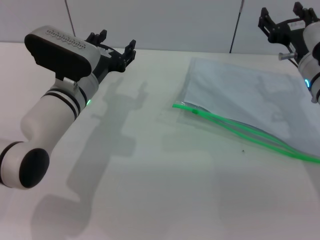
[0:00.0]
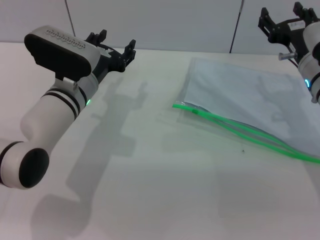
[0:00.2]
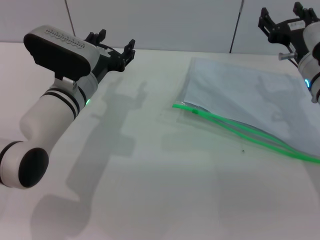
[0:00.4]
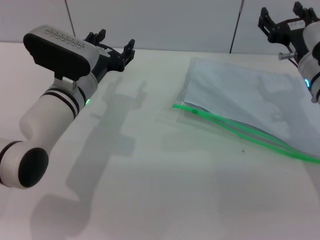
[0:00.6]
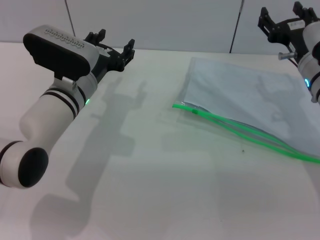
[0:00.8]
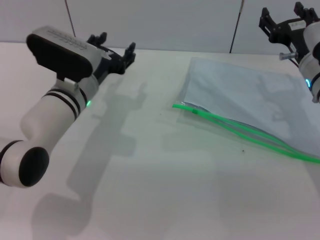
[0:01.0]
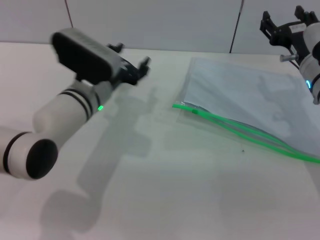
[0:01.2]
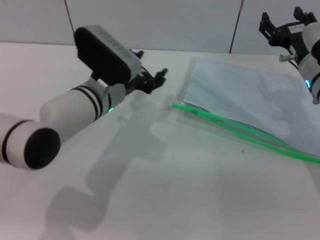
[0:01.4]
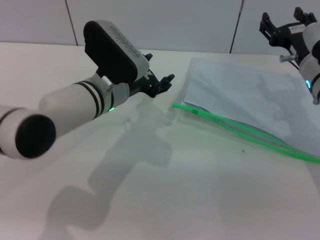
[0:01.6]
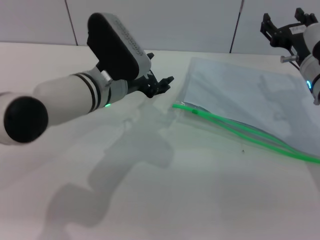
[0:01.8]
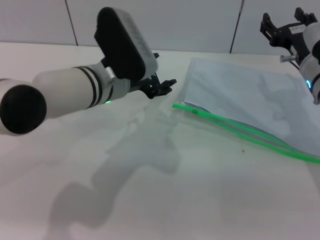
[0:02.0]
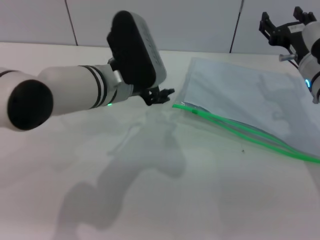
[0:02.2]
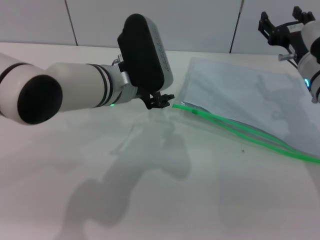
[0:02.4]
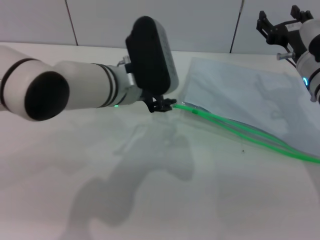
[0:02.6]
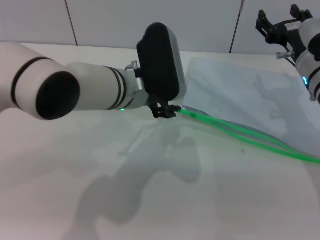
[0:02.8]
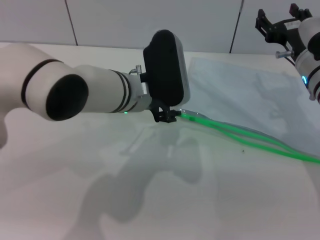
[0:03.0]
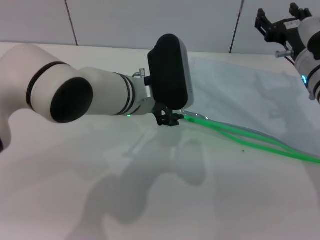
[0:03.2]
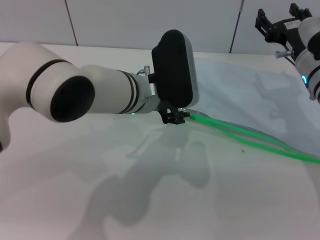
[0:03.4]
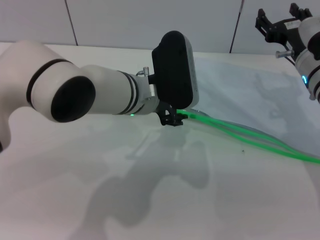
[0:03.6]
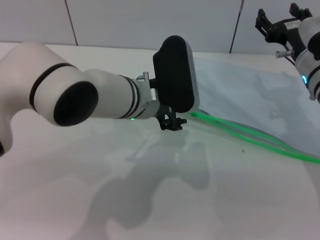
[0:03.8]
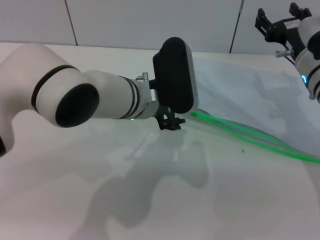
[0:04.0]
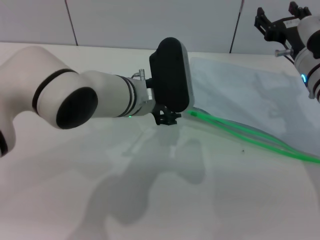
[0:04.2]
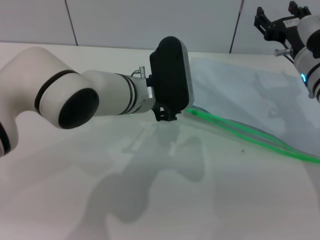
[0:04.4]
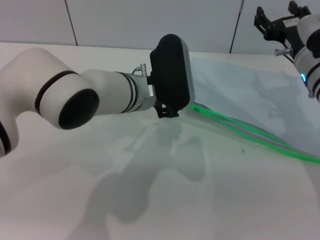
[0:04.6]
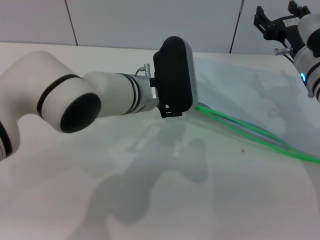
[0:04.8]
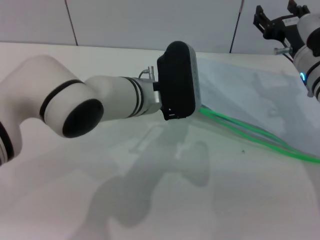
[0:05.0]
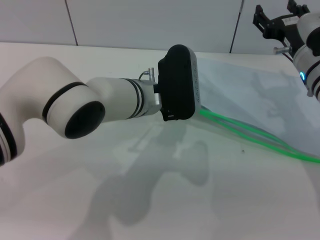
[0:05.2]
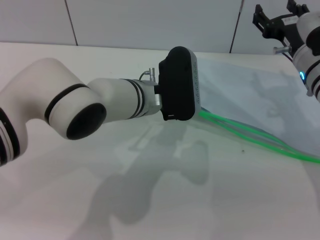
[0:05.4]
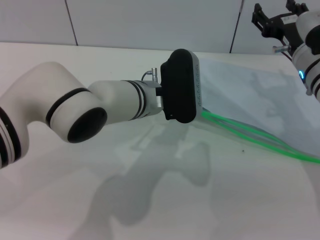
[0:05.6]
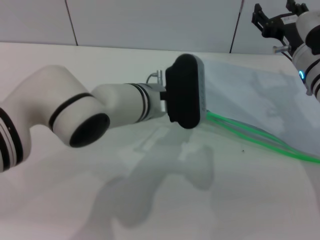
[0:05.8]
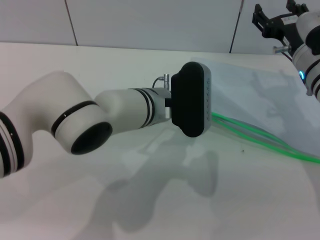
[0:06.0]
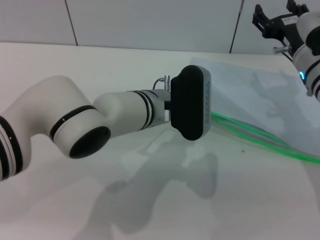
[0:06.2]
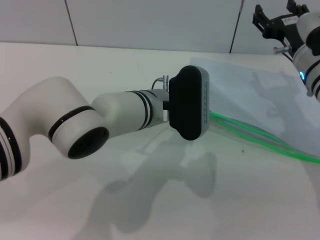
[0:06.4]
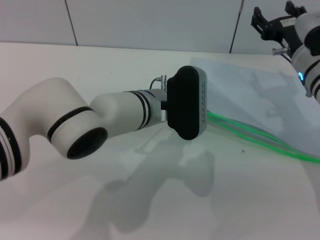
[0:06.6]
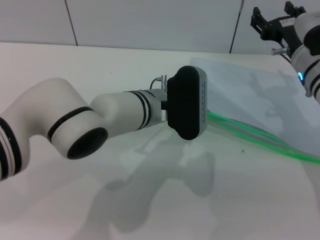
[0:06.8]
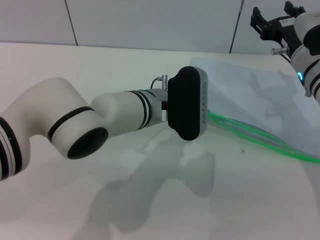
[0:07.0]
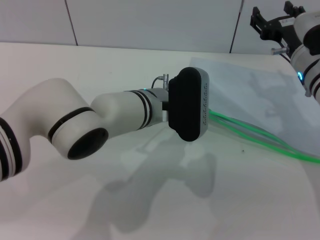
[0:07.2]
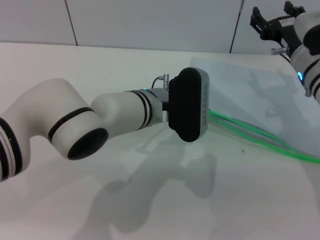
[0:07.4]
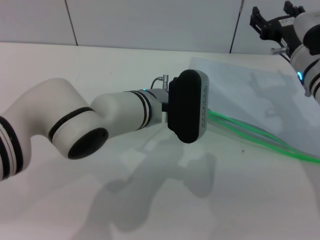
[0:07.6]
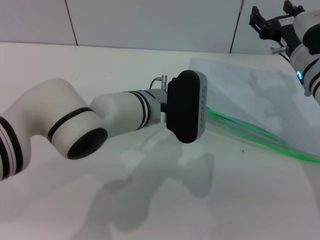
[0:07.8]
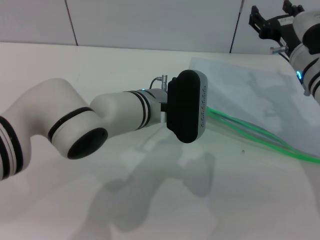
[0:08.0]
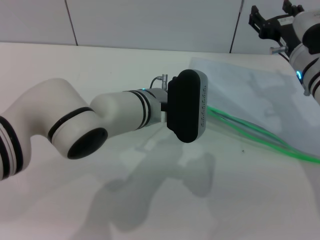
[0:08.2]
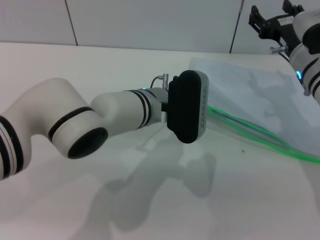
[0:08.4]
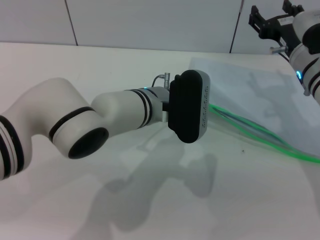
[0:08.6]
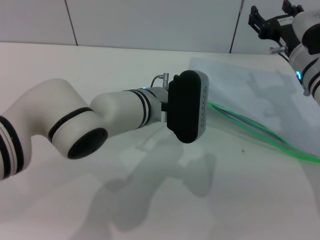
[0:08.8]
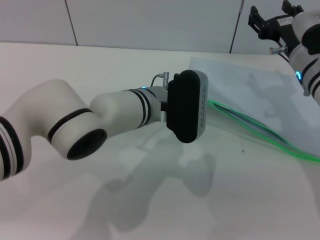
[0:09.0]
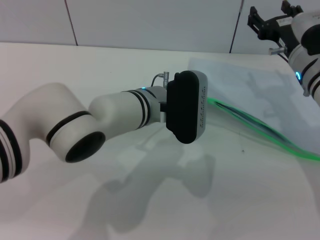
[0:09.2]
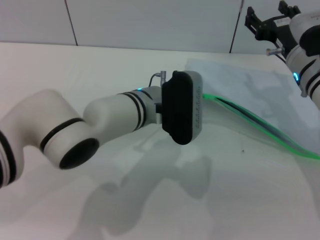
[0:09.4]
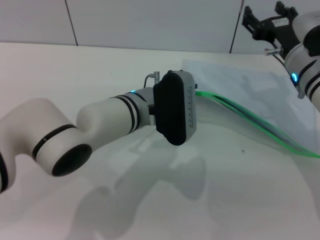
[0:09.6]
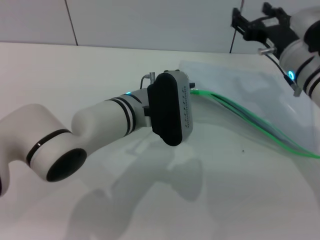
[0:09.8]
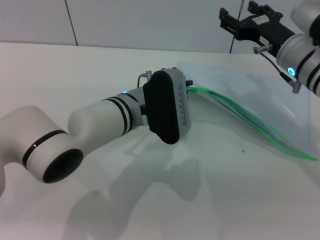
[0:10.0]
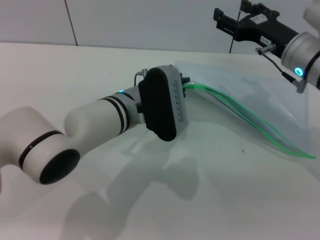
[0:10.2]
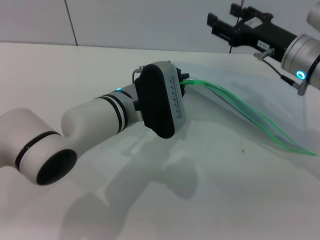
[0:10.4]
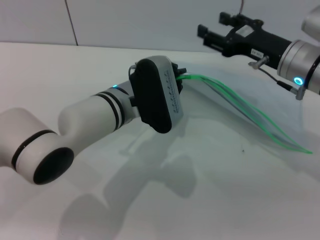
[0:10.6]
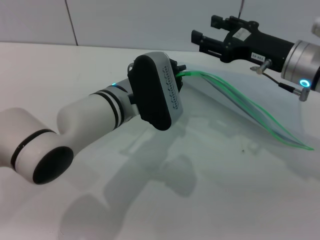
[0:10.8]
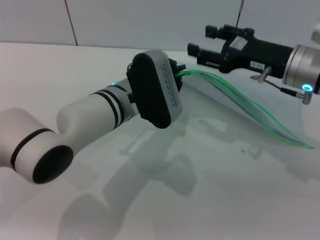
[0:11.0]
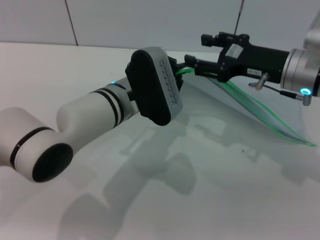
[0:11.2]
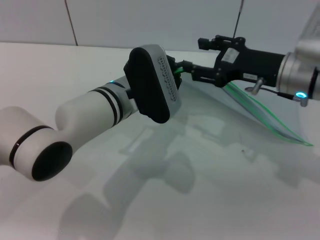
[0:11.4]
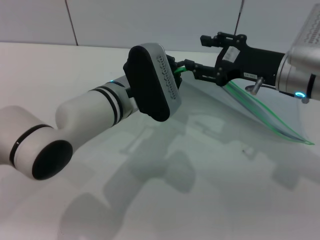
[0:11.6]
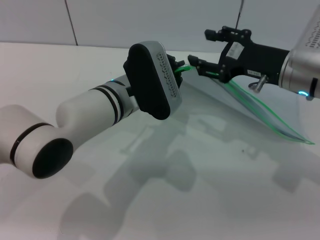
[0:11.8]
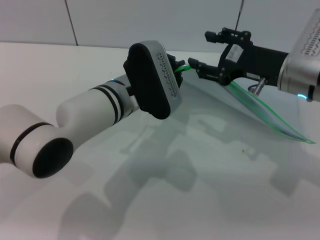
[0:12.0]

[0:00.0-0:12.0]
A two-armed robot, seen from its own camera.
Step, 0:00.0 to 0:10.6: Pick up the transparent plastic bag with the left gripper.
0:03.0 to 0:06.0: The grippers move only a little.
0:06.0 to 0:07.6: Both grippers stay about where they are.
0:07.6 to 0:09.0: The left gripper closes.

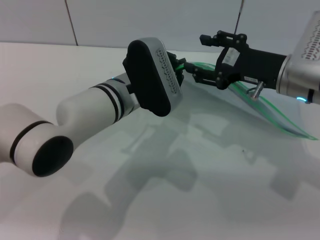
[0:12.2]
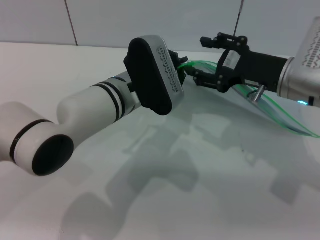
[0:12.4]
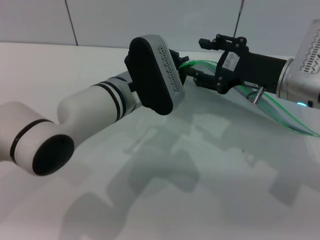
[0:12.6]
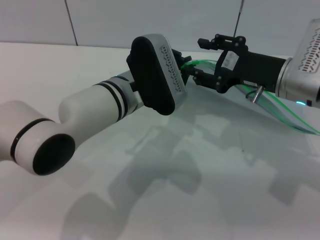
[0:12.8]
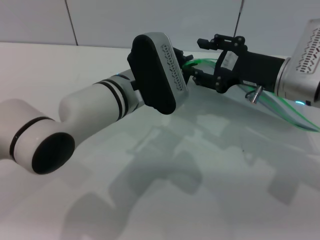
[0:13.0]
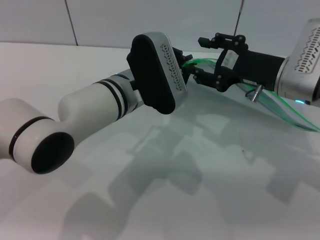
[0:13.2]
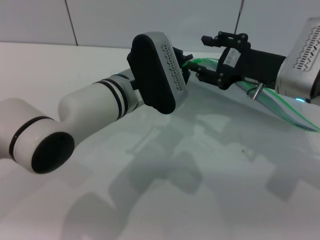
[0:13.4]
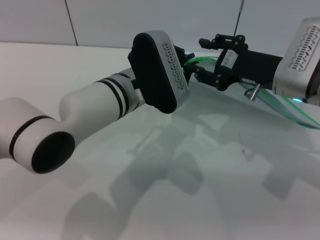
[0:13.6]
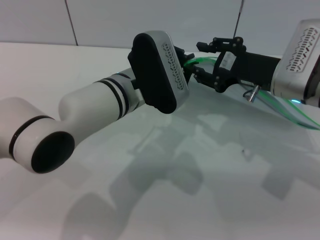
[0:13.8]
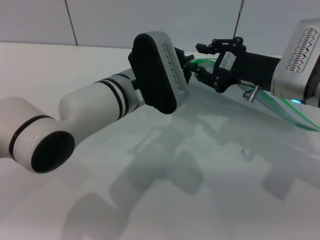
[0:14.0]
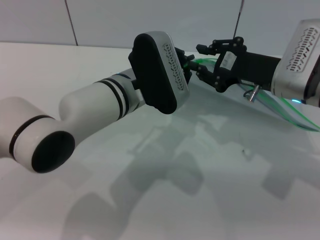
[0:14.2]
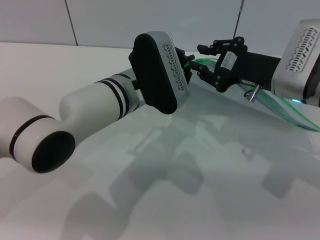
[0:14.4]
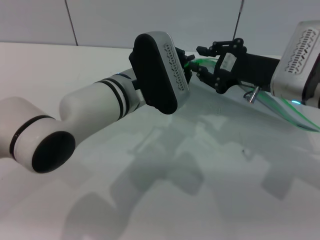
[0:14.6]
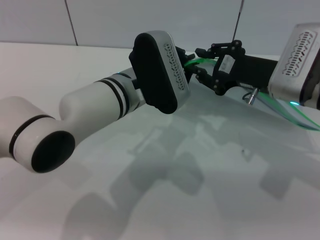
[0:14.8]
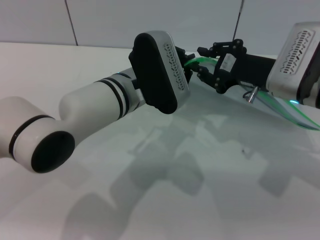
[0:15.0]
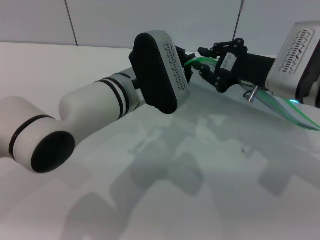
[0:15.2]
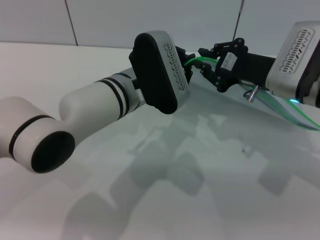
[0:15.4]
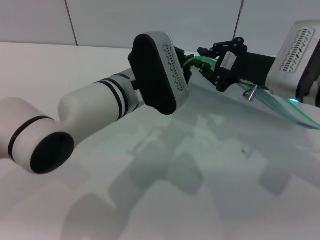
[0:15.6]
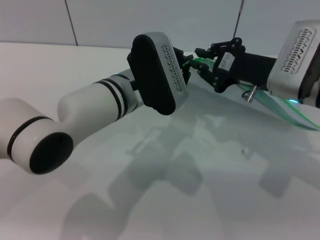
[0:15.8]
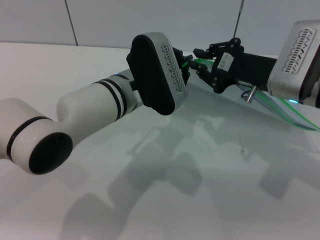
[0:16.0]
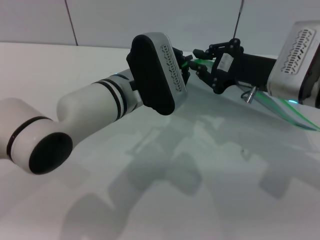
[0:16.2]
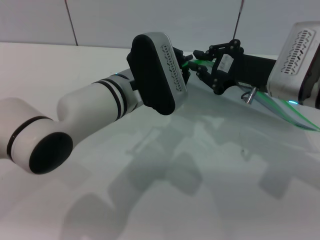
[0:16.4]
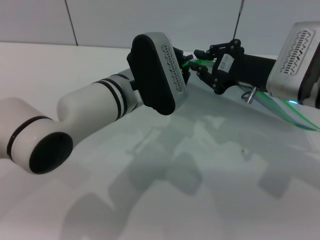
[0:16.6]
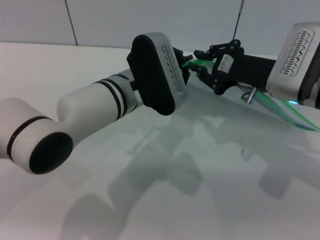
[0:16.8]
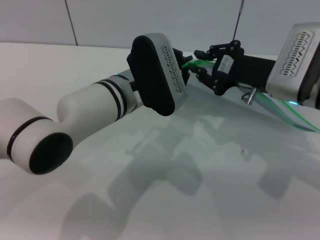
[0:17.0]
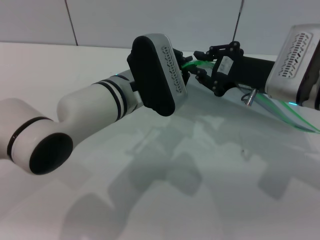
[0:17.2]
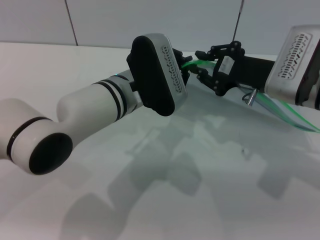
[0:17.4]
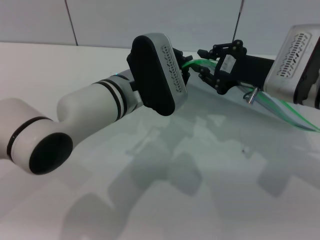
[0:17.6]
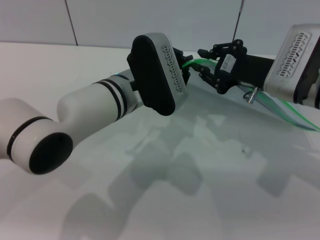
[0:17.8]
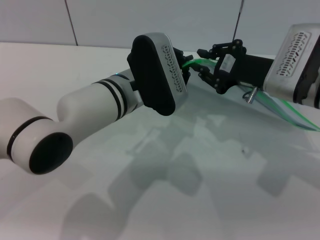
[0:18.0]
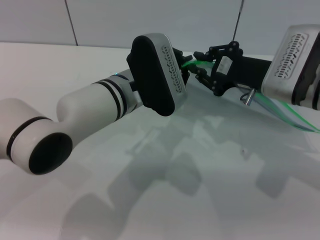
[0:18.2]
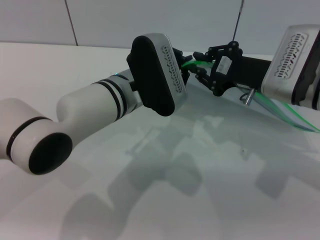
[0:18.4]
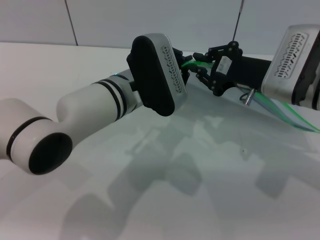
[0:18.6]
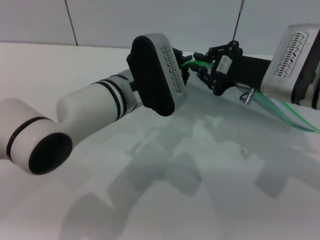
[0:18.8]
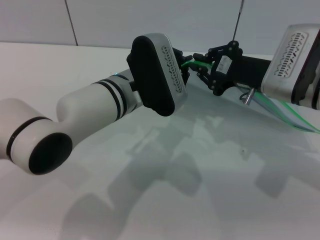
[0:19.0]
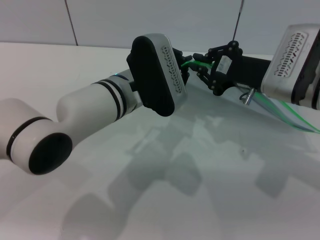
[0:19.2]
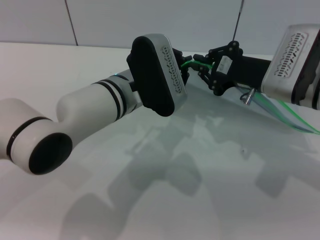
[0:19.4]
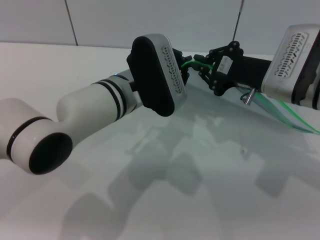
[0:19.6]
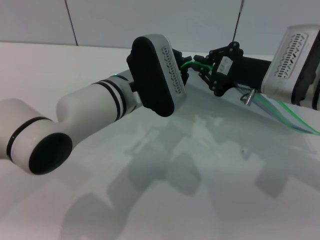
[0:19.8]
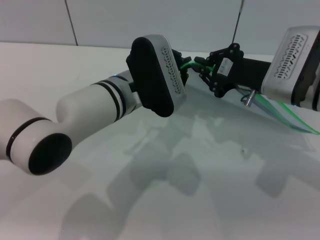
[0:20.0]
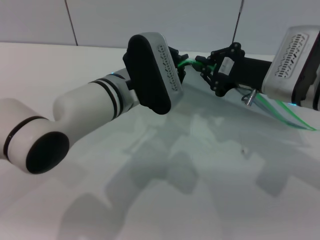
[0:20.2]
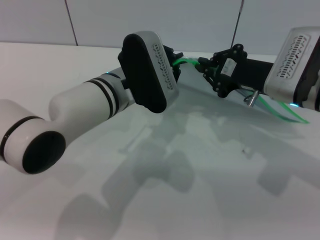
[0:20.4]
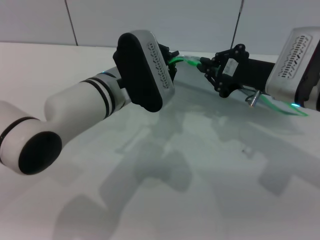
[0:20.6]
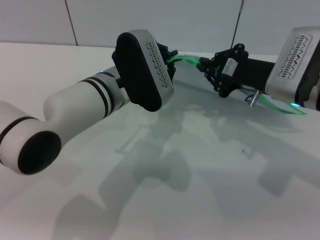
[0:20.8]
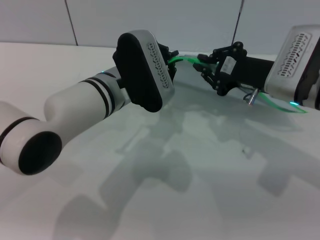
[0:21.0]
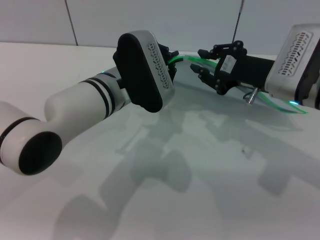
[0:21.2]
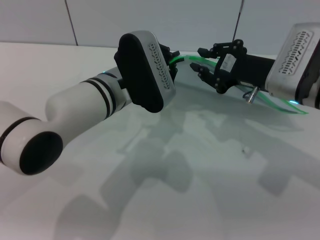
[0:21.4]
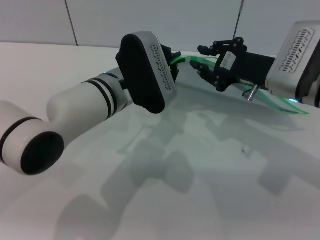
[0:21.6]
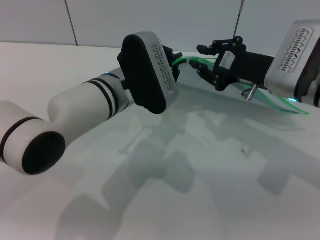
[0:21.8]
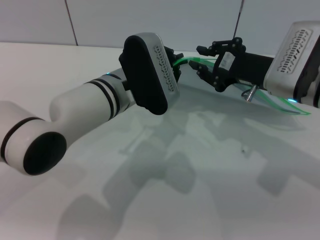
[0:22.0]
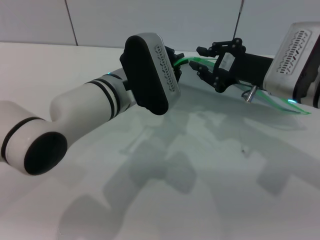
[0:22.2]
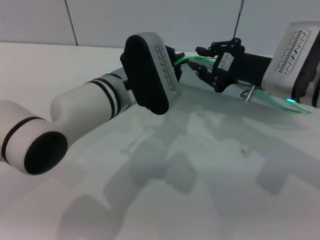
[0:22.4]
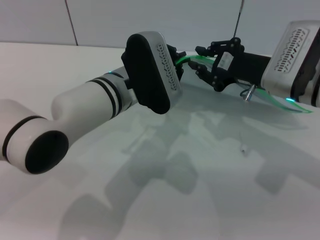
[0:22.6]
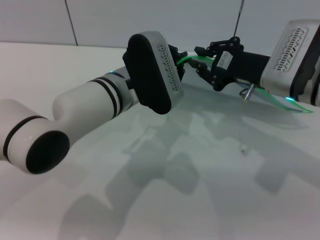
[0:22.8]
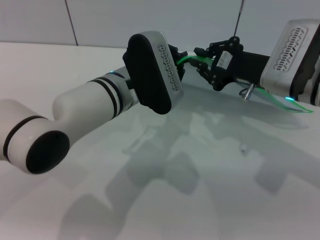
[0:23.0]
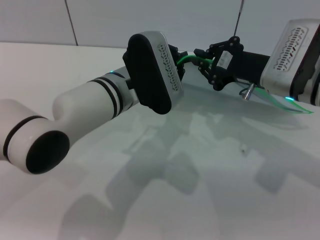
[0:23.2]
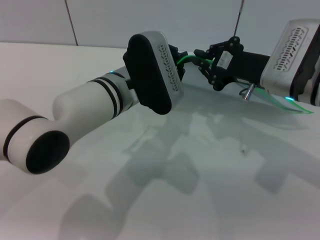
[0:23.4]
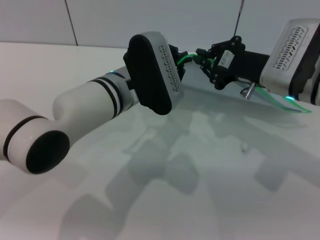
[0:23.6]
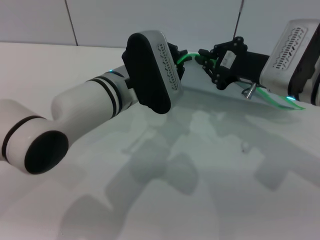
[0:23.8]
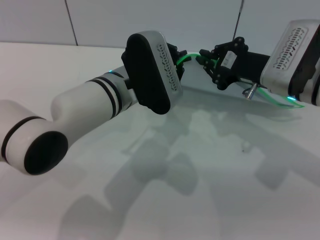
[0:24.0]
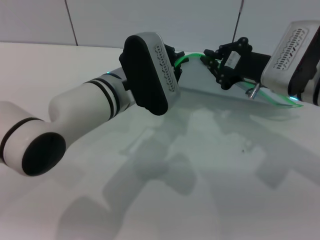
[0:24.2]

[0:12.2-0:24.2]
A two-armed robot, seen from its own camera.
0:12.2 to 0:13.8: There are only small adjustments of the grippers.
0:13.8 to 0:19.8: Both grippers stay about where they are.
0:19.8 to 0:21.2: The grippers make only small movements.
0:21.2 to 0:24.2: The two grippers keep their place.
